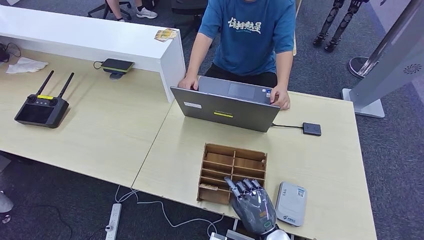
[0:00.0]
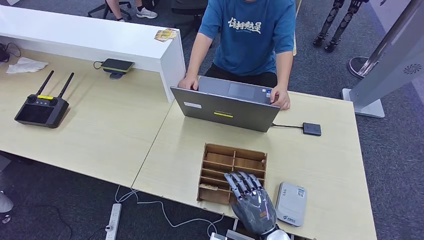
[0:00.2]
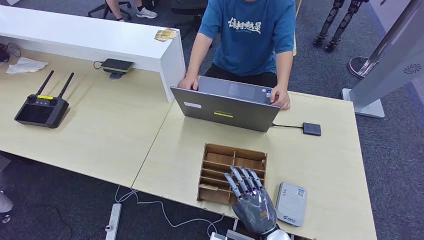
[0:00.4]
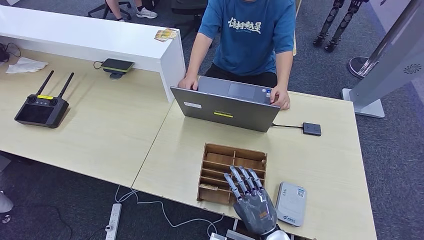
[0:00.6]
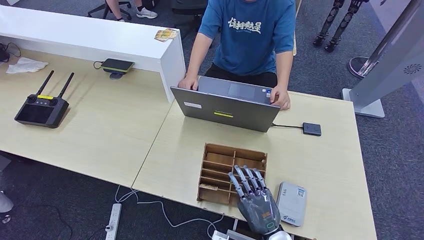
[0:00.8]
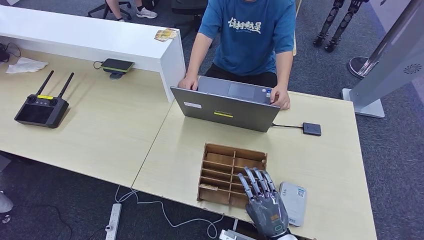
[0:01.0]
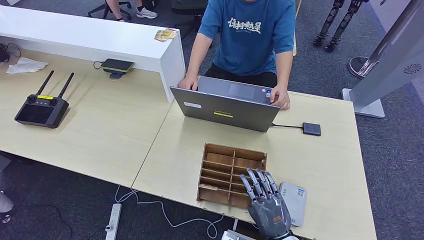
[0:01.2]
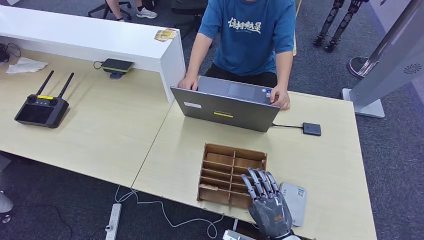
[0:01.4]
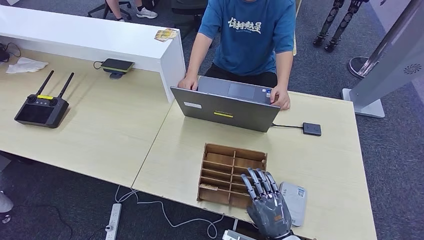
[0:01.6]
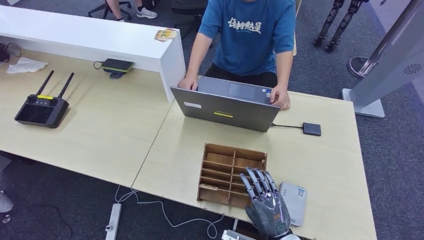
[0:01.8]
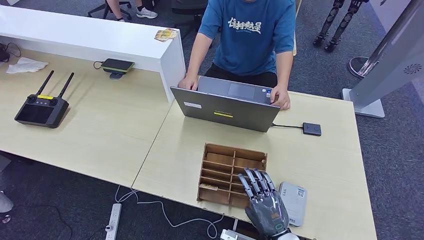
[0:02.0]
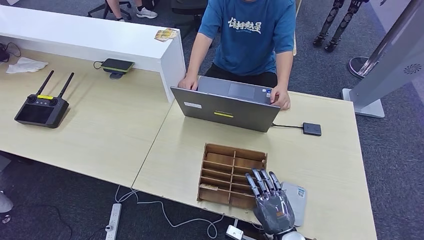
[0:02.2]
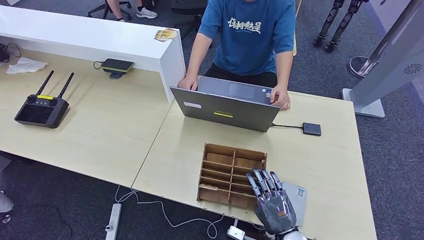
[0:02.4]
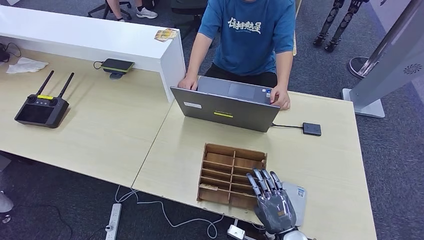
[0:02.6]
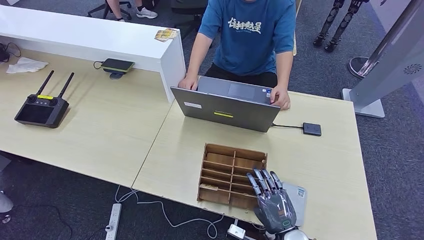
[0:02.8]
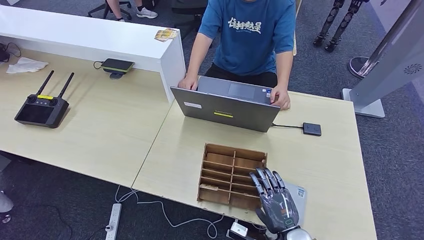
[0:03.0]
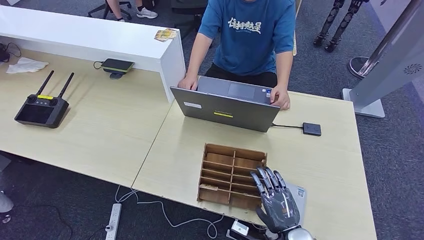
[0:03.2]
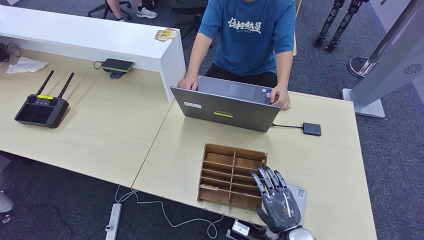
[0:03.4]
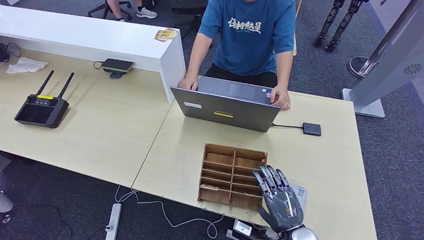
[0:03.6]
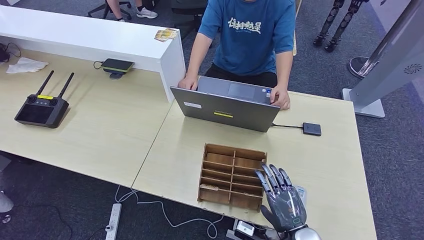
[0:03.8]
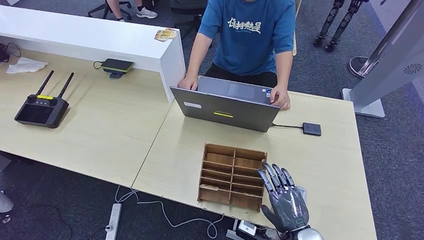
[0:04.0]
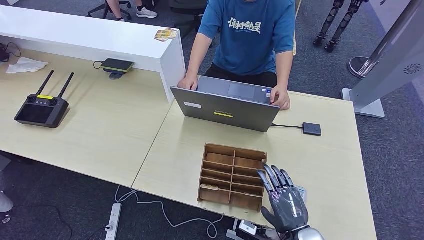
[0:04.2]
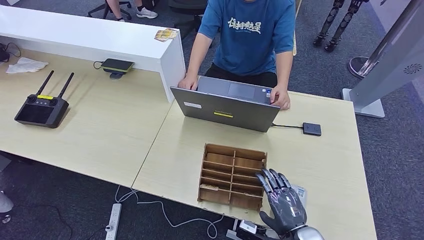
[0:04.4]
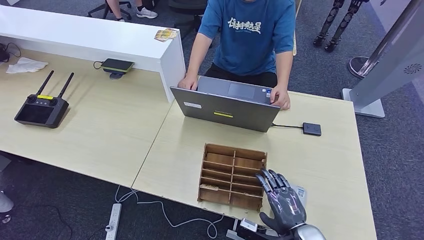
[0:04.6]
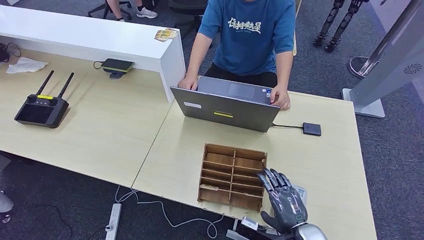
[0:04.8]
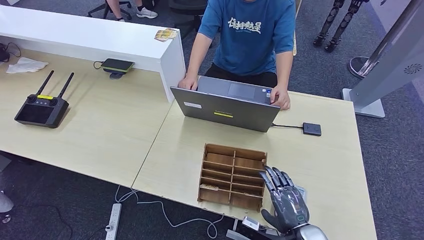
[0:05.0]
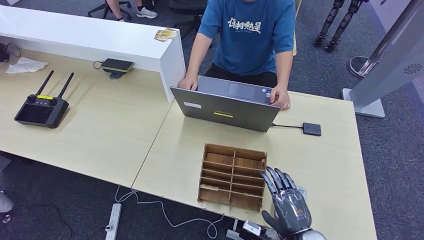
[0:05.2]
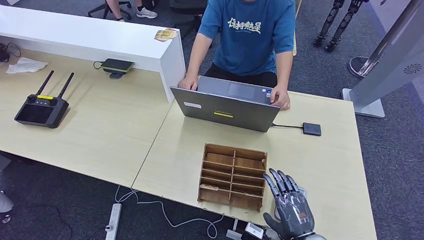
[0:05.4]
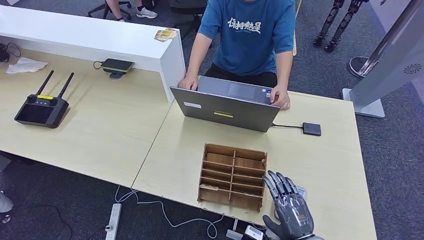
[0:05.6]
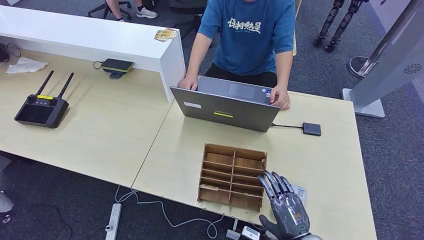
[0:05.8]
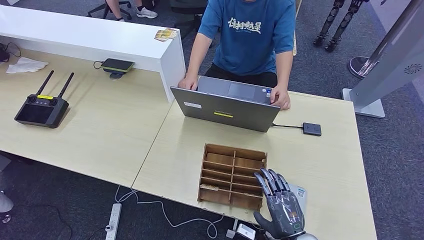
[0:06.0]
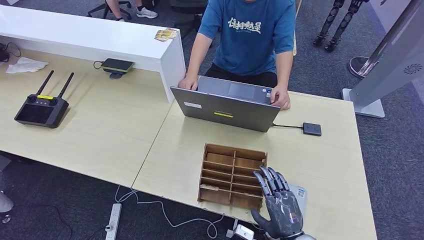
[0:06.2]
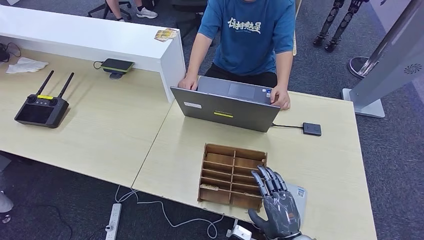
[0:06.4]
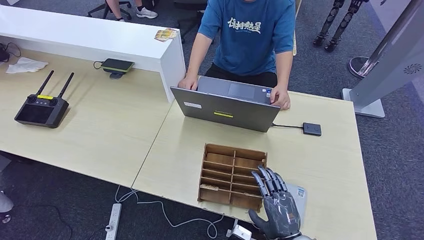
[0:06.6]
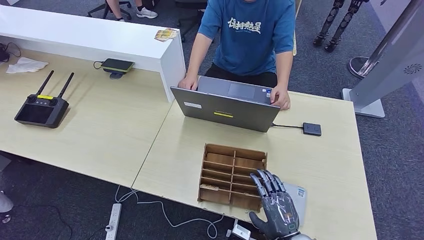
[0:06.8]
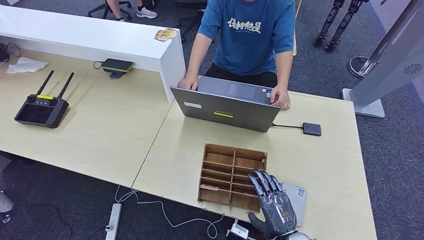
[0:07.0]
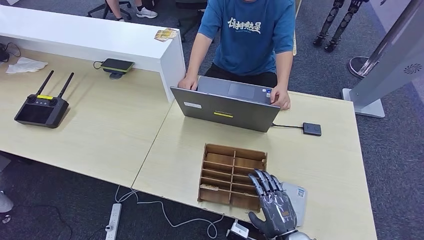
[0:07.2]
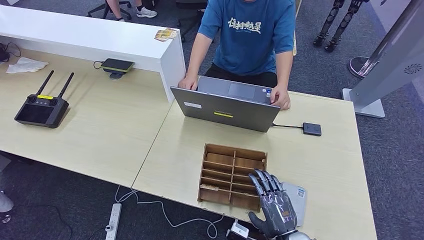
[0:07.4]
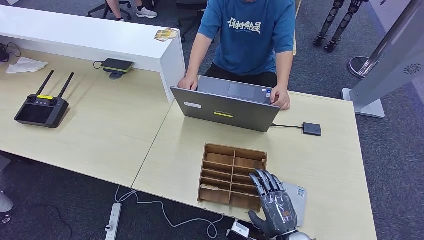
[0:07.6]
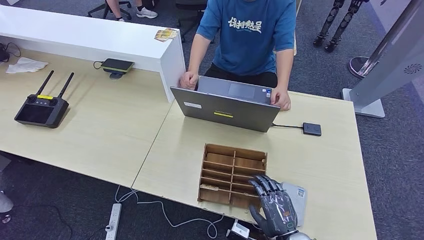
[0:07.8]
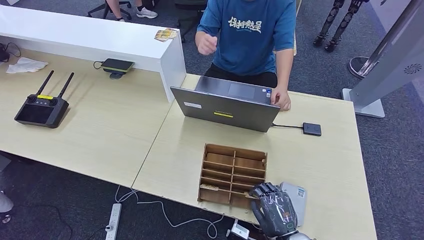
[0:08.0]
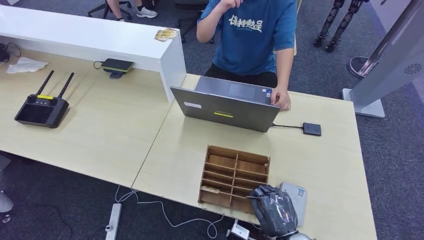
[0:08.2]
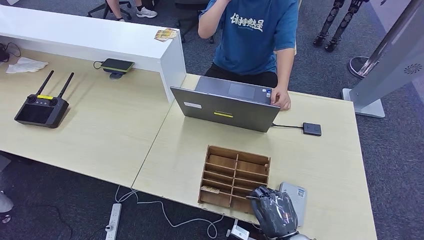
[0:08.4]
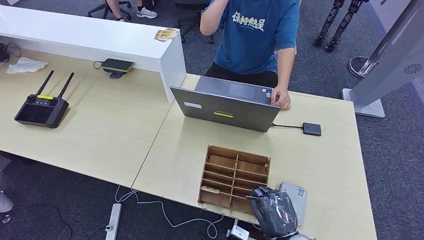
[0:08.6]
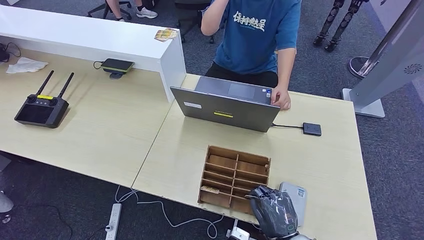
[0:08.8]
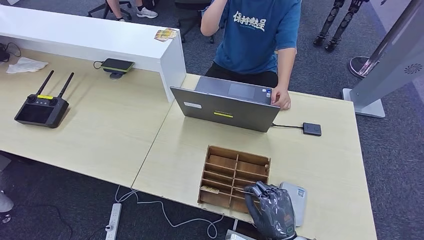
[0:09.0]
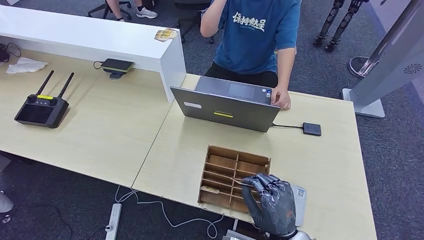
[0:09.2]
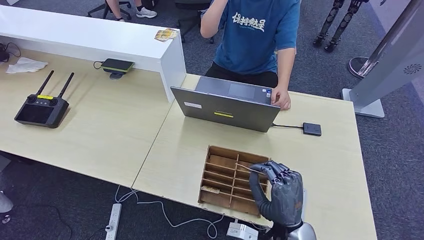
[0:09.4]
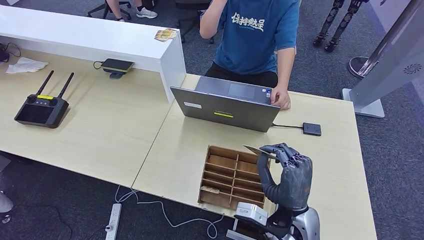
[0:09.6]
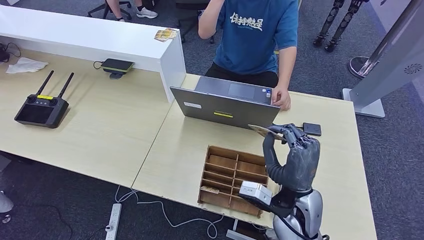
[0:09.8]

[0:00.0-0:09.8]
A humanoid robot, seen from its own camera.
0:00.0 to 0:02.8: There are only small adjustments of the hands.
0:02.8 to 0:07.0: There are only small adjustments of the hands.
0:07.0 to 0:08.4: Both hands stay put.
0:08.4 to 0:09.8: The right hand is displaced upward and forward by approximately 15 cm.

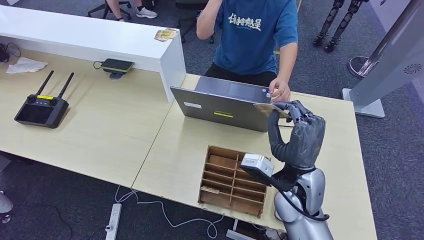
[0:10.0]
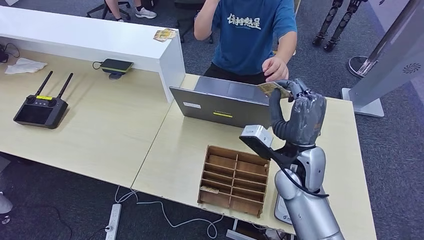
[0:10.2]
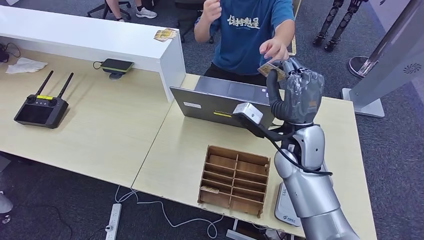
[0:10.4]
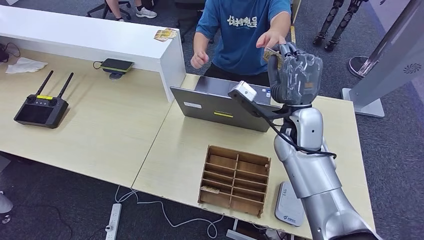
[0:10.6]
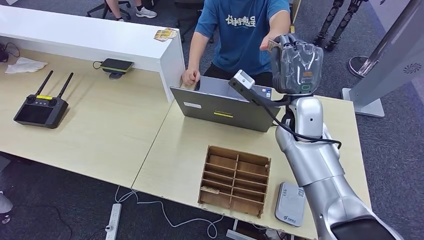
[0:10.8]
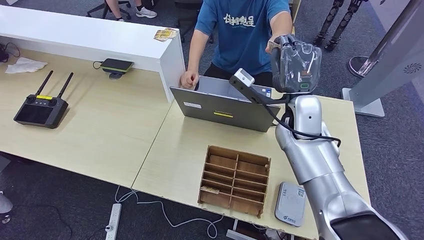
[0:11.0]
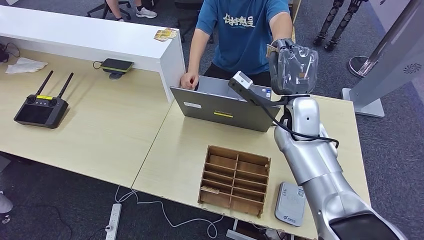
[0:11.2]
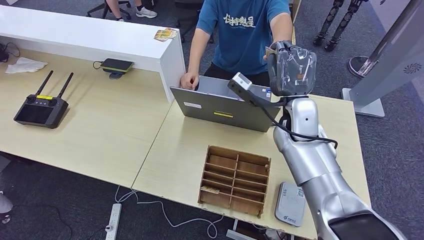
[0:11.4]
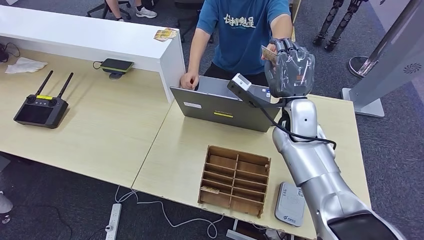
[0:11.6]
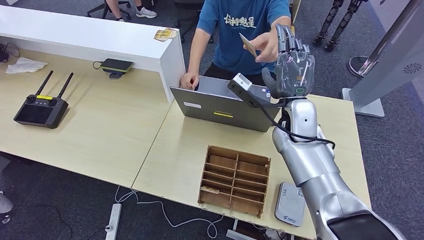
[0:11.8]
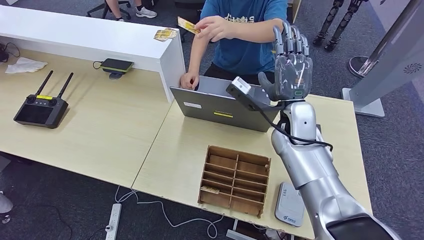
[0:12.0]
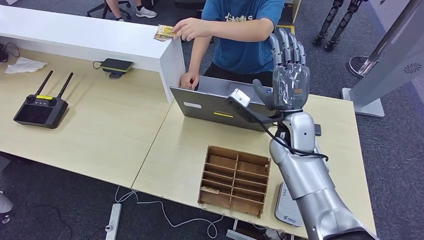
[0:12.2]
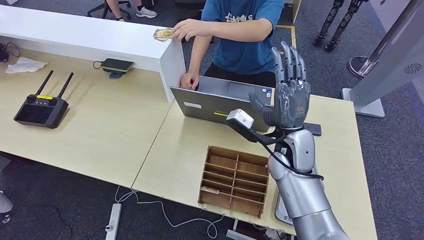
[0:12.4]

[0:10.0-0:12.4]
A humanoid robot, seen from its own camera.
Step, 0:10.2 to 0:12.4: Hand the room key to the person.
0:10.0 to 0:11.2: The right hand shifts some 15 cm forward and upward.
0:11.2 to 0:12.4: The right hand goes roughly 5 cm backward.
